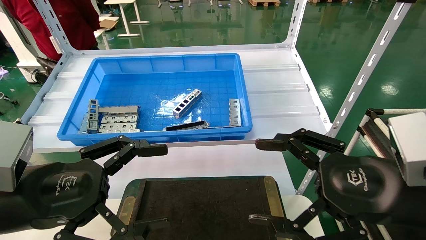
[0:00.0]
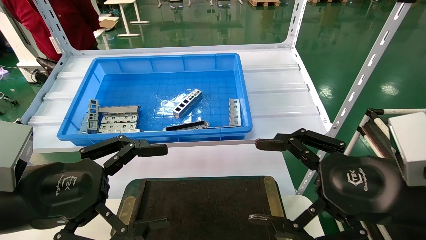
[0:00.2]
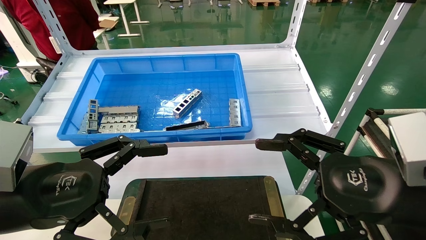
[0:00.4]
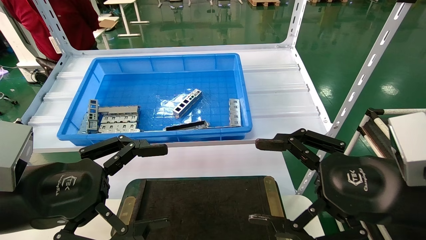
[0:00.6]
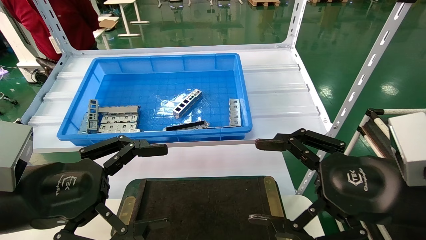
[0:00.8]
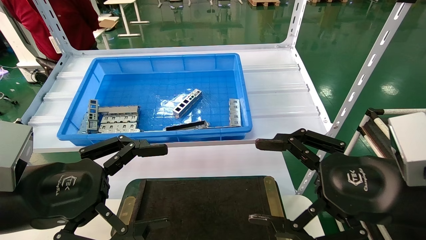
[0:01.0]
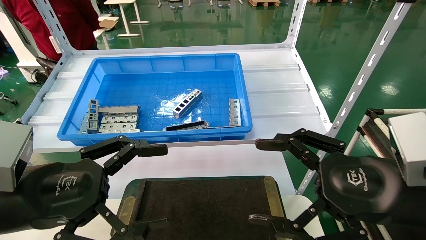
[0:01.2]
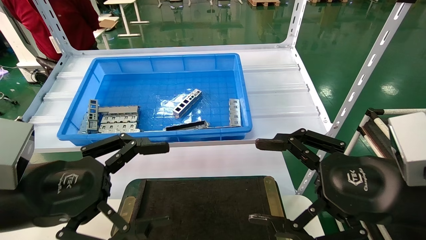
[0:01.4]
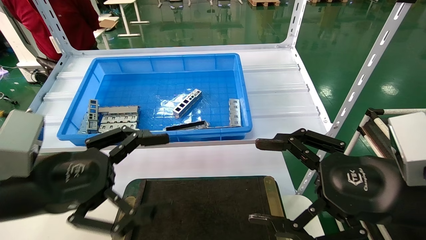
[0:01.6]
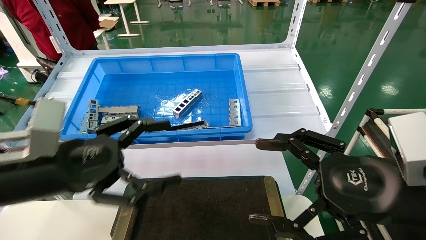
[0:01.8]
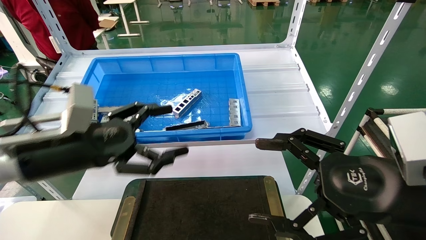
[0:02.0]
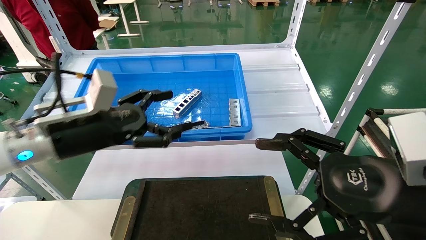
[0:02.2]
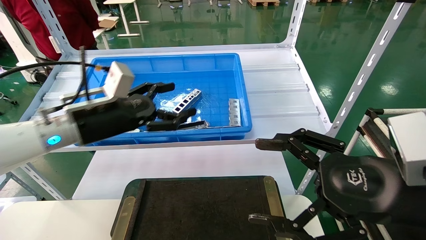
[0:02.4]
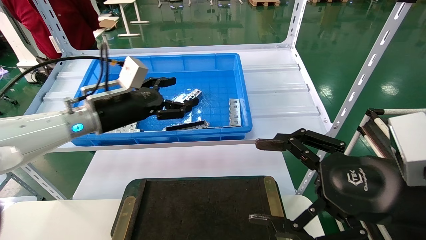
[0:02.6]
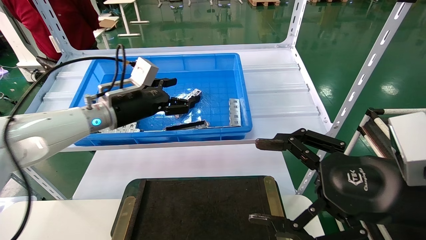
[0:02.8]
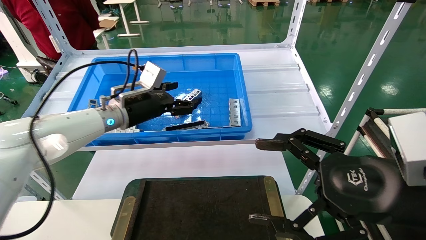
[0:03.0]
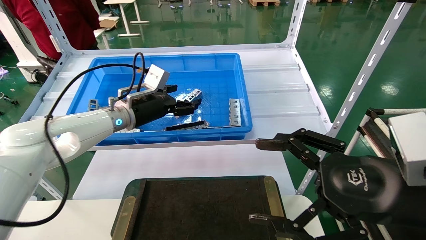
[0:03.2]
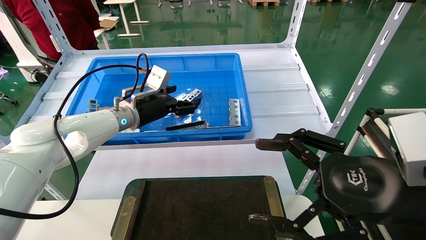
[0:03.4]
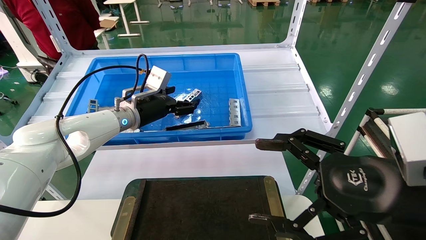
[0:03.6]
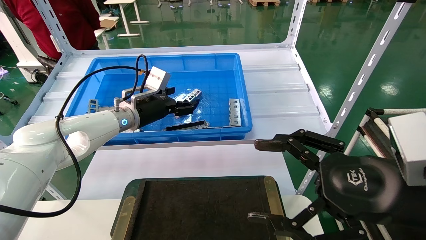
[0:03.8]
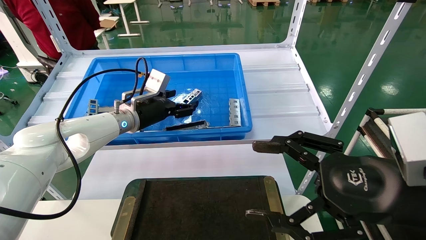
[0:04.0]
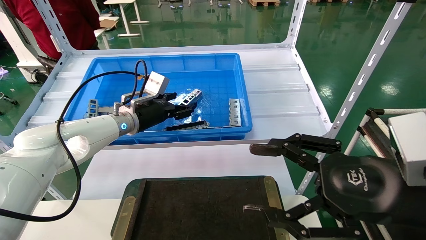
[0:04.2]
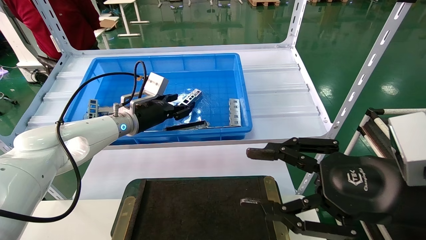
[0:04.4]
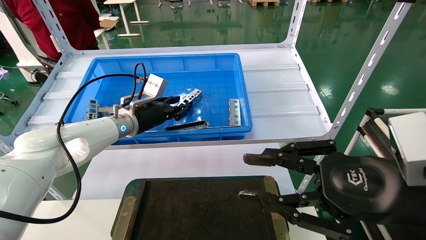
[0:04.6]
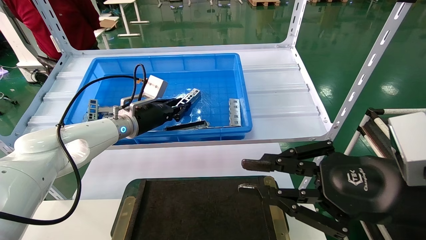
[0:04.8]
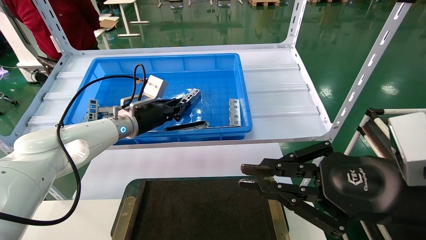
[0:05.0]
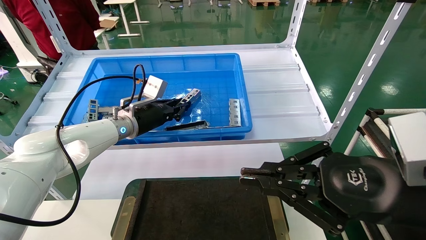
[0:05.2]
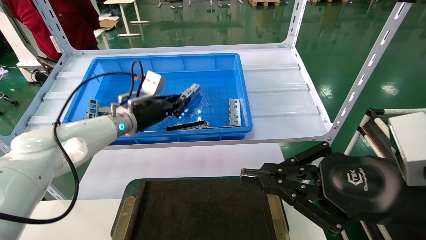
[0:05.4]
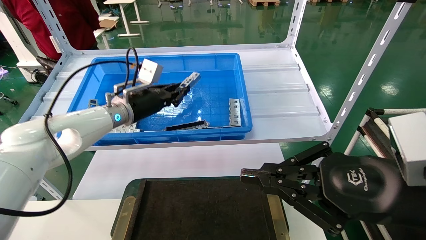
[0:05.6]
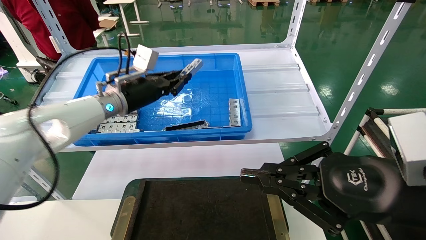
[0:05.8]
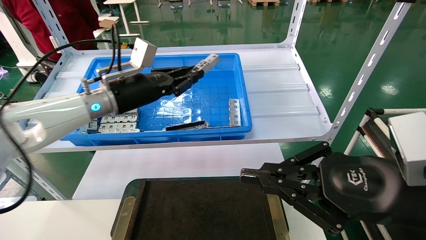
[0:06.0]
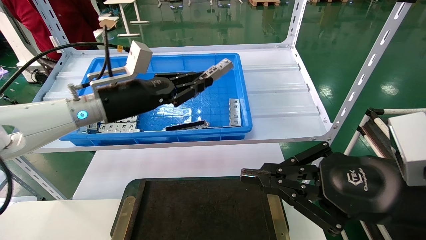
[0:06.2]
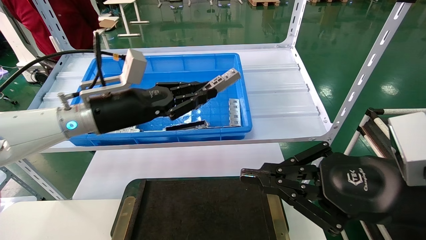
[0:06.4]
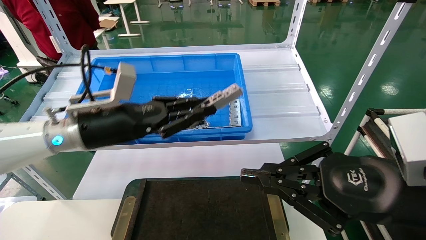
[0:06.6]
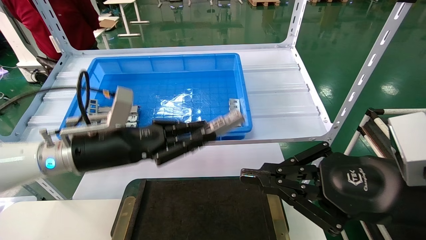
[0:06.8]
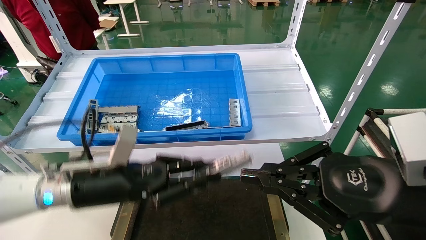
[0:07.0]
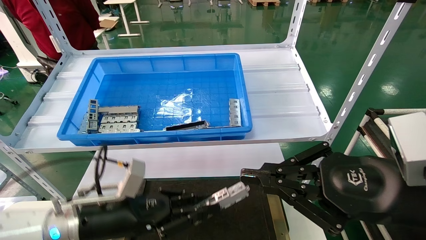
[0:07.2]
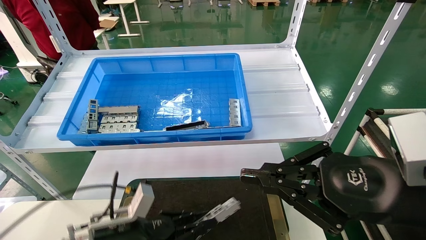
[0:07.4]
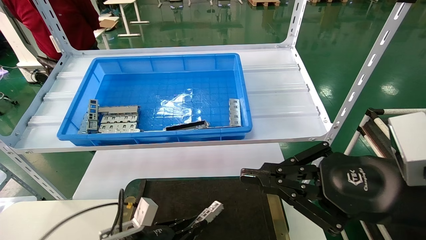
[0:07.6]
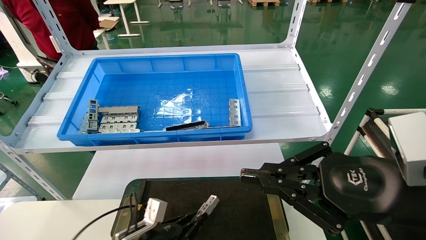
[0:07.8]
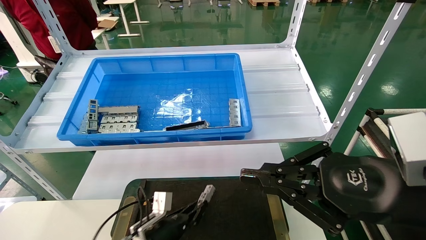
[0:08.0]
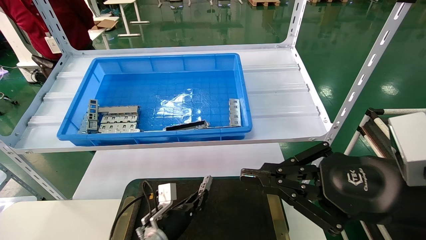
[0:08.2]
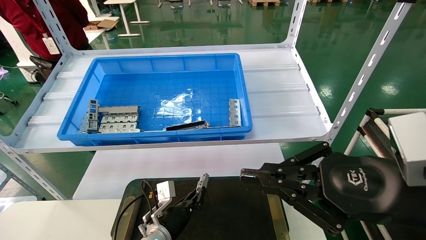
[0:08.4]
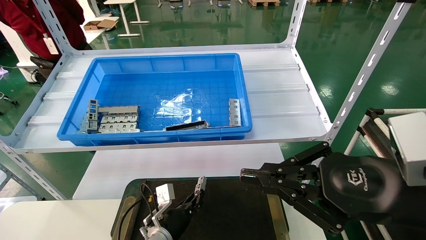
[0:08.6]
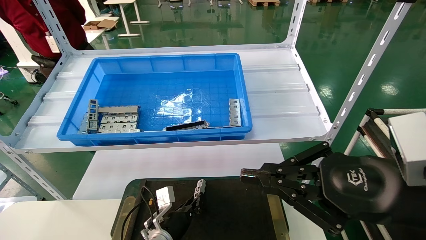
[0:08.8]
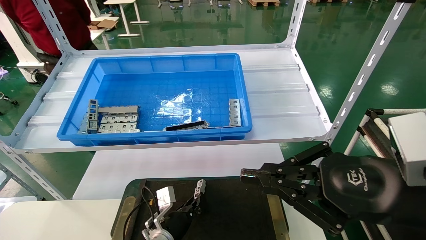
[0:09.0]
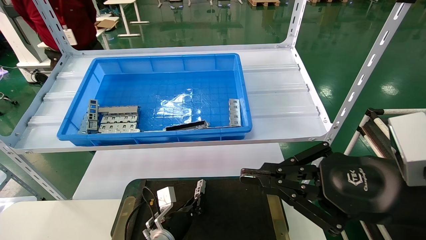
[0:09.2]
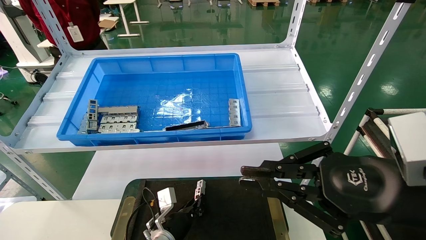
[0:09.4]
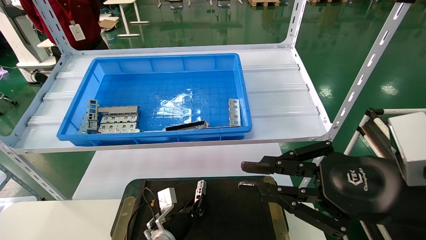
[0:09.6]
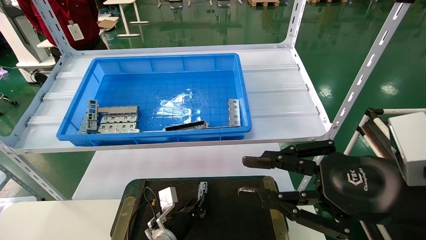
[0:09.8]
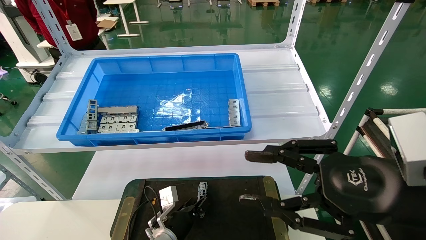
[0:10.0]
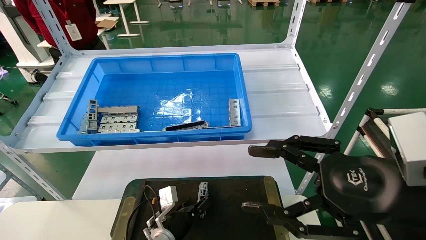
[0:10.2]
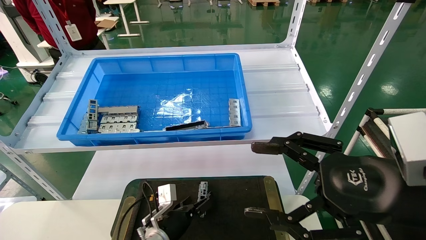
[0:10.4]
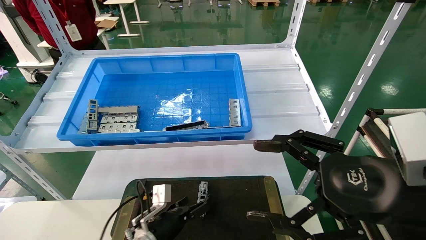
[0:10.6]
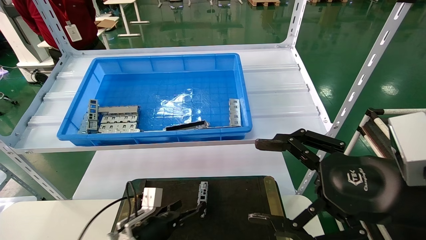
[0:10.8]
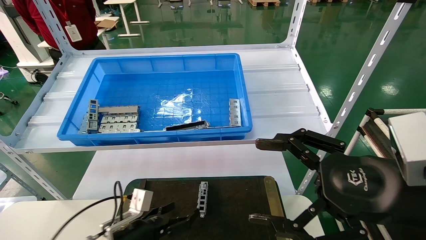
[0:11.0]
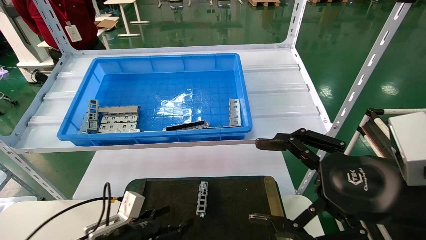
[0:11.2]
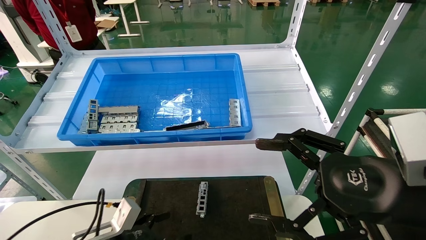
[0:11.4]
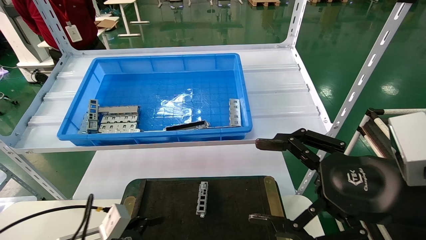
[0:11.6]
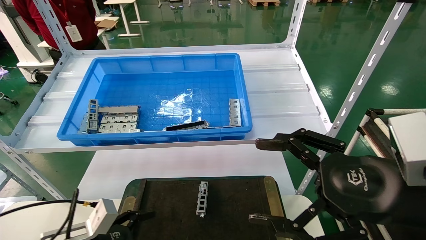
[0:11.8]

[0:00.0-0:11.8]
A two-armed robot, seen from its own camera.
Task of the whole recording: Grasp the part with one hand and place it on the black container.
Step, 0:01.8 to 0:05.6: Pick up the front USB bracket from the feeding area.
Step, 0:05.8 to 0:10.0: Place the front USB bracket into the box.
0:00.0 to 0:01.4: Both grippers stay put.
0:01.4 to 0:03.0: The left gripper heads forward, covering roughly 25 cm.
0:03.0 to 0:04.4: The left gripper closes its fingers.
0:04.4 to 0:06.0: The left gripper heads upward and backward, covering some 10 cm, and closes up; the right gripper closes up.
0:06.0 to 0:07.4: The left gripper heads downward and backward, covering approximately 30 cm.
0:07.4 to 0:08.8: The left gripper goes roughly 15 cm downward, forward and to the right.
0:08.8 to 0:10.4: The left gripper opens, while the right gripper opens its fingers.
0:10.4 to 0:11.8: The left gripper goes roughly 20 cm to the left, backward and upward.
